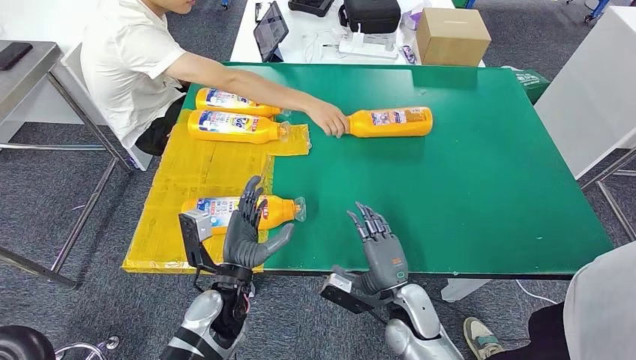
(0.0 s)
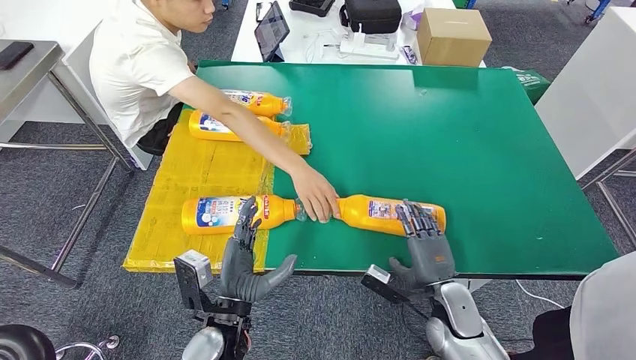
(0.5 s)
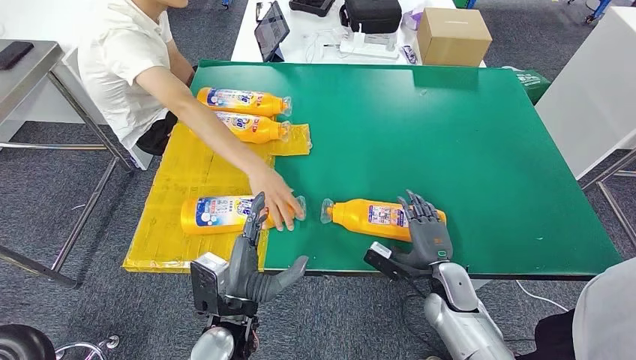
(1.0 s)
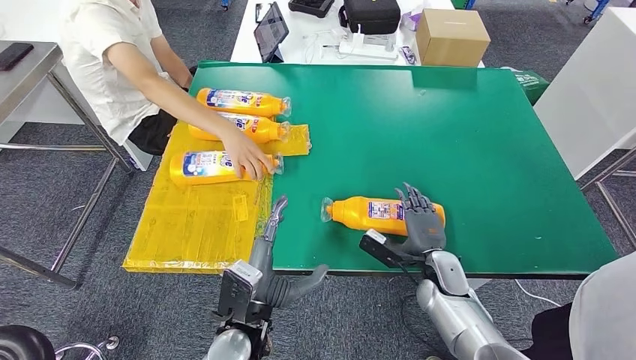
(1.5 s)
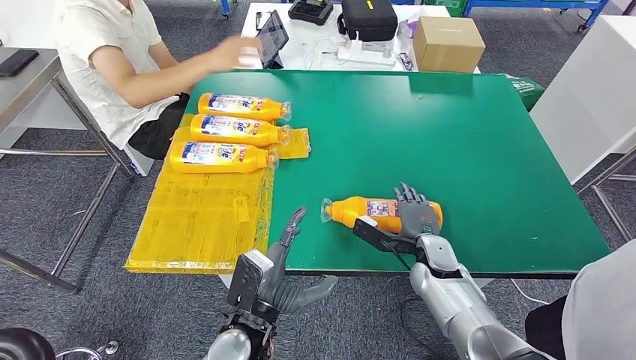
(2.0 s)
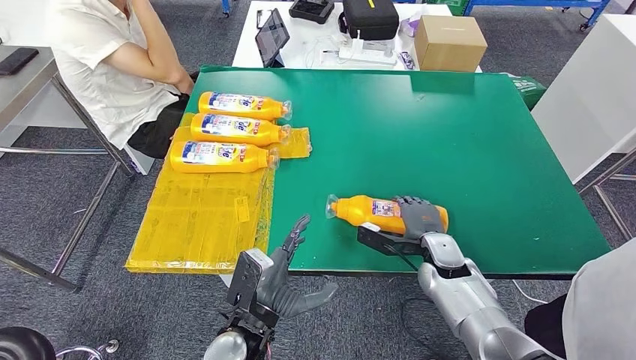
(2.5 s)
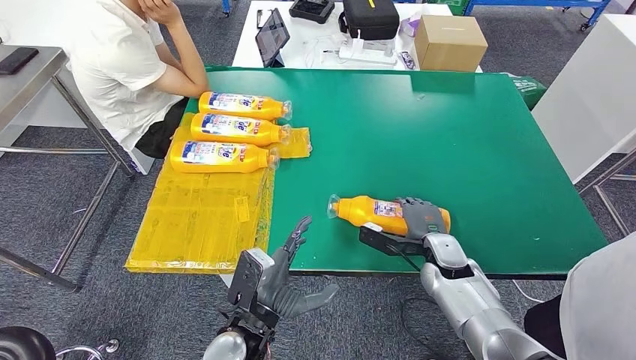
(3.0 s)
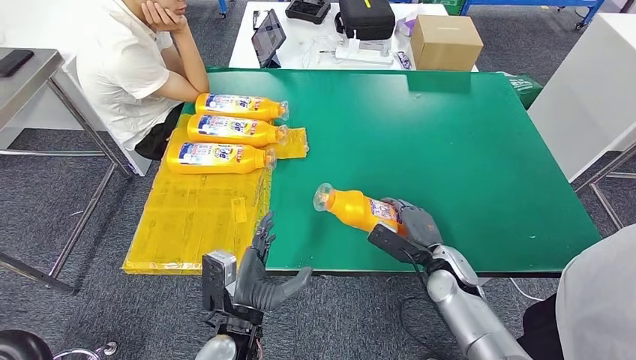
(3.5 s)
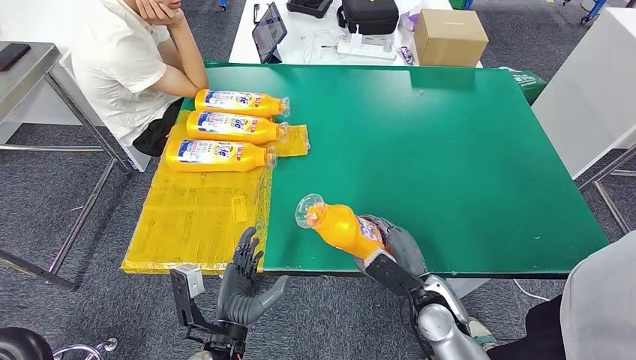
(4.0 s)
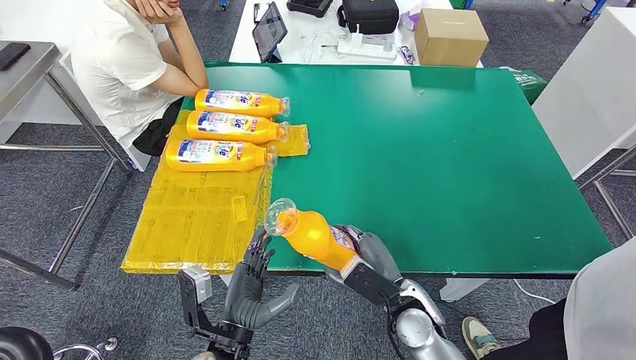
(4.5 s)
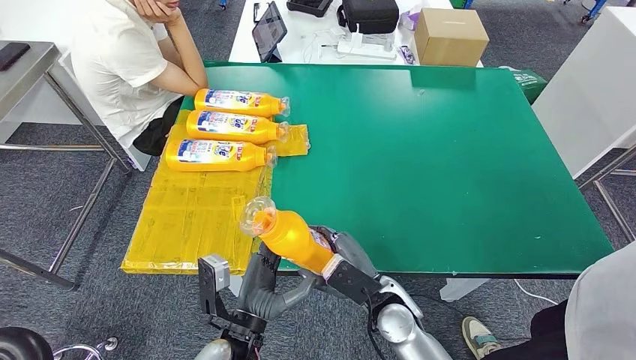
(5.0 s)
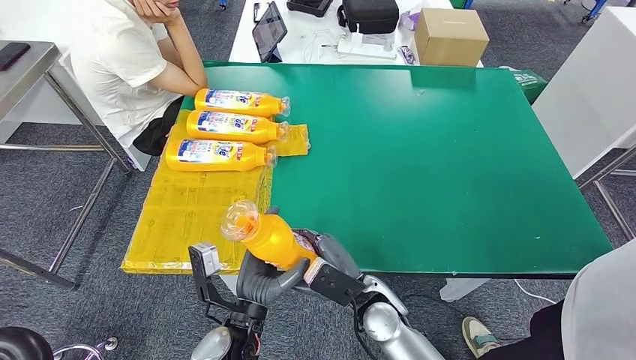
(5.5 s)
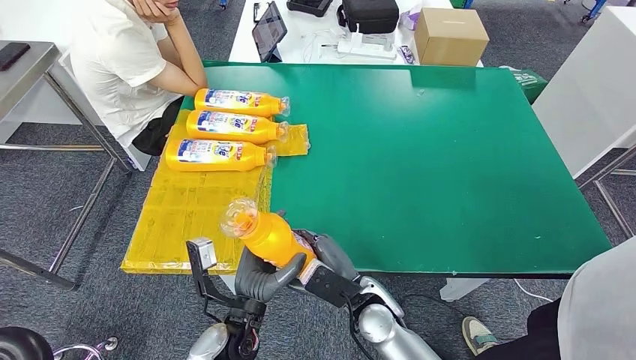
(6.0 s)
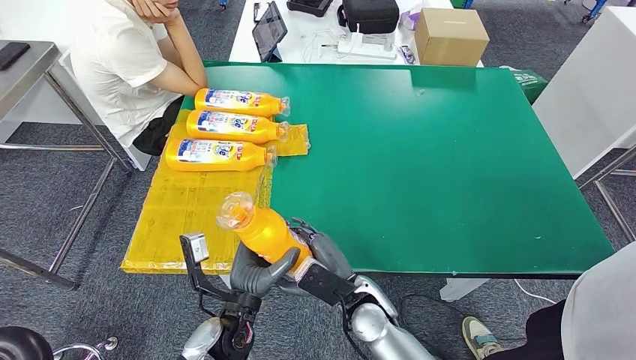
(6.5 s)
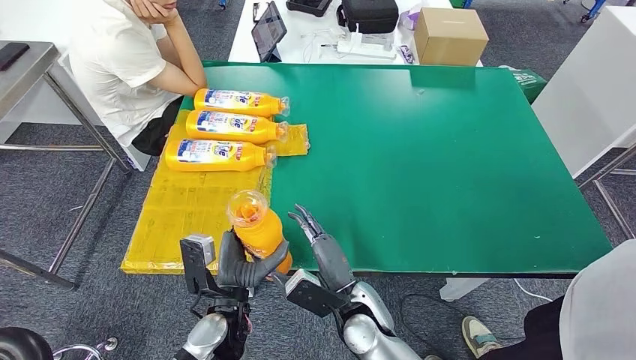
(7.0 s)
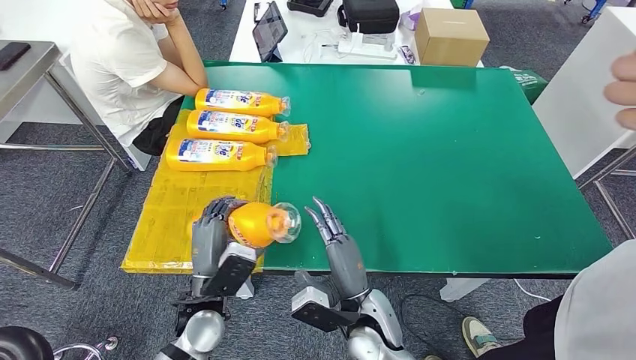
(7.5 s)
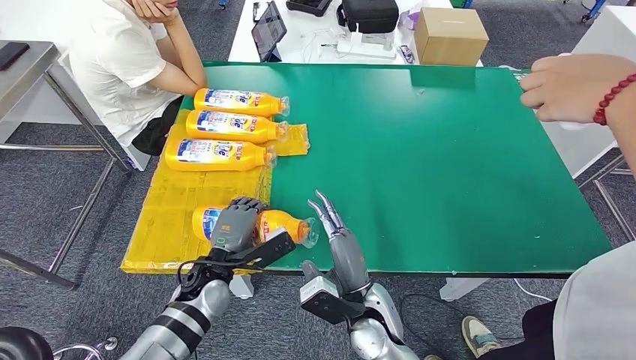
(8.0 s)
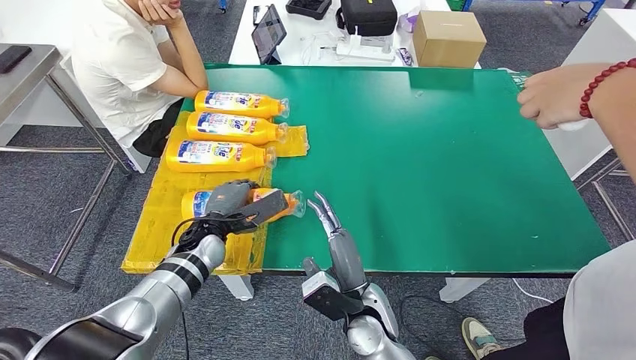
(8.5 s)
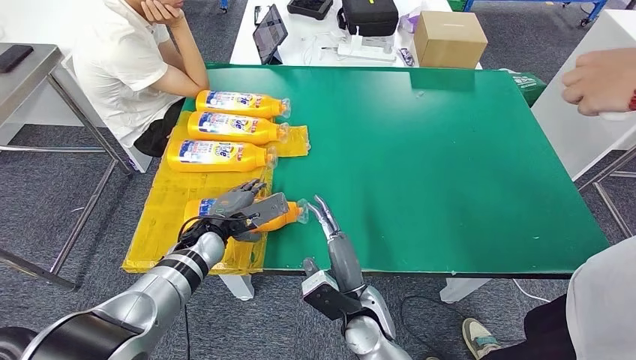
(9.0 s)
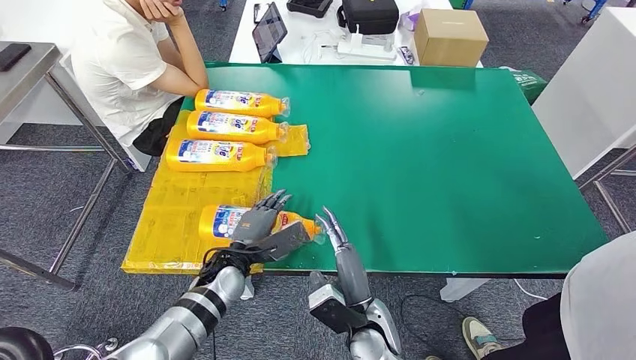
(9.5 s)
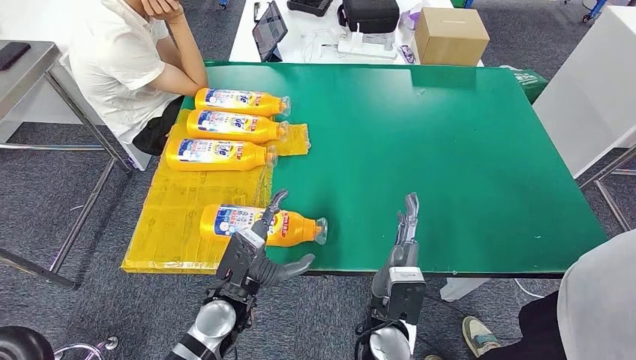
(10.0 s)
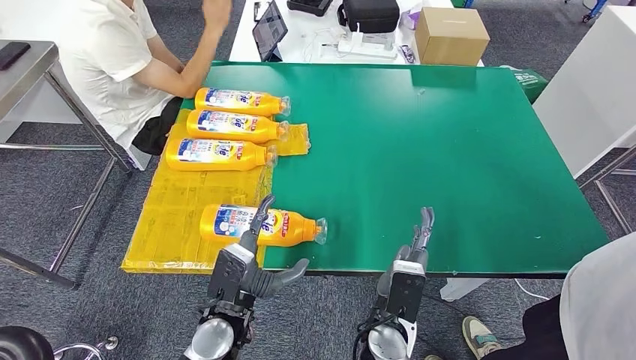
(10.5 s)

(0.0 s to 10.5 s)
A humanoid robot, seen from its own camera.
Step, 0.5 s - 5.0 s: Pick up the fast-moving consumer goods bottle from the table.
Step, 5.5 s - 10.5 s: Flip the fast-moving consumer goods bottle to the front side.
4.0 s - 6.5 s: The left hand changes place by some 5 cm. Meanwhile the right hand heads to the left, covering some 15 cm.
